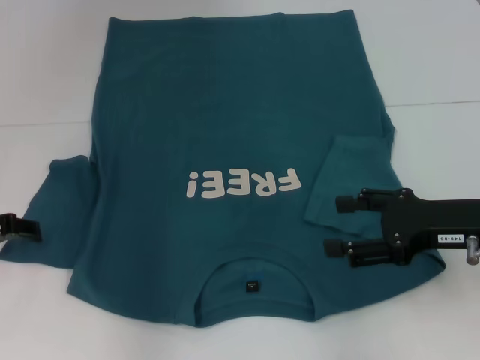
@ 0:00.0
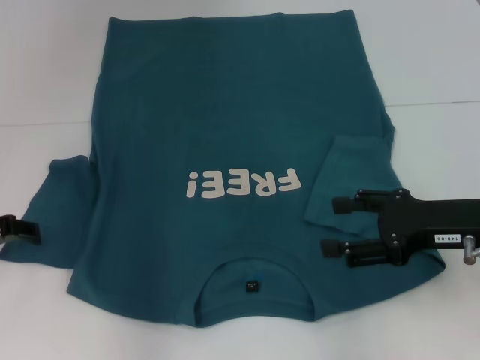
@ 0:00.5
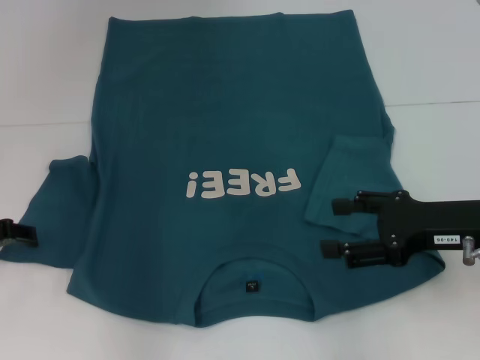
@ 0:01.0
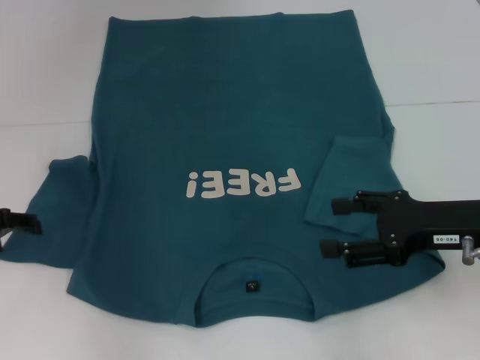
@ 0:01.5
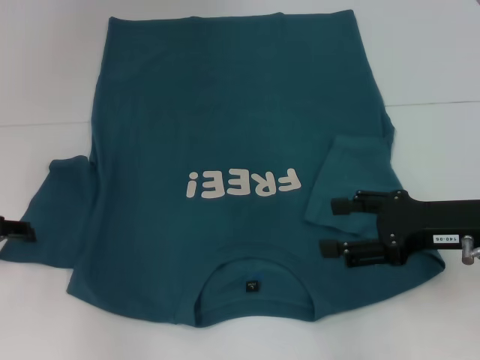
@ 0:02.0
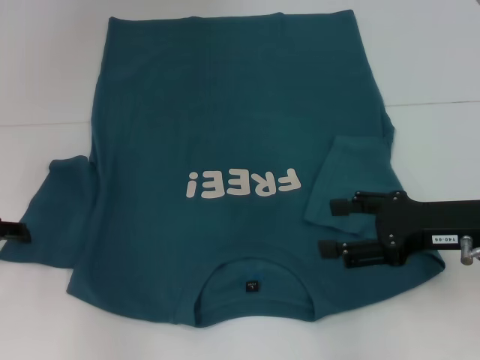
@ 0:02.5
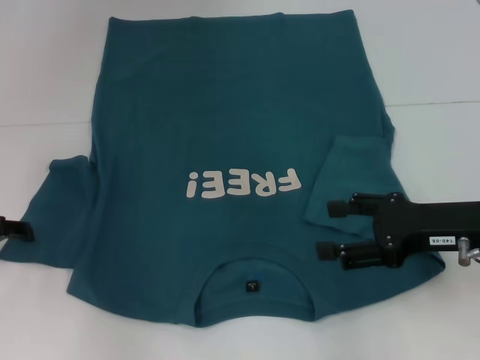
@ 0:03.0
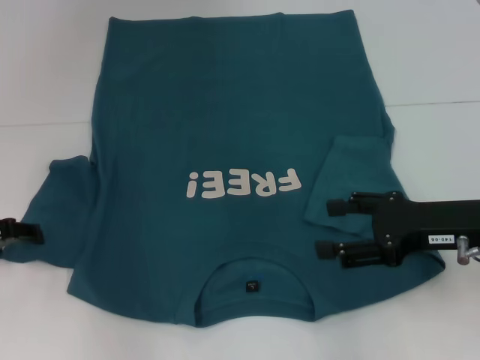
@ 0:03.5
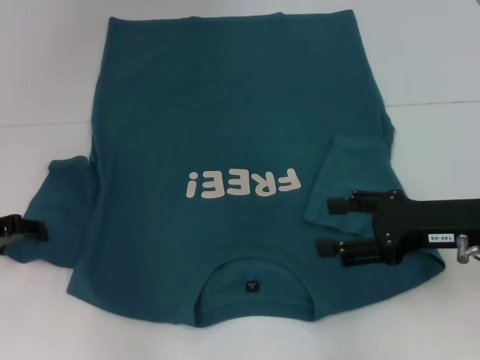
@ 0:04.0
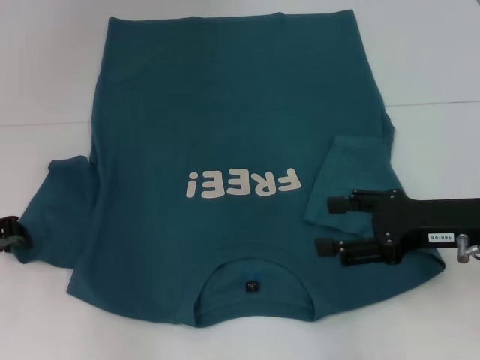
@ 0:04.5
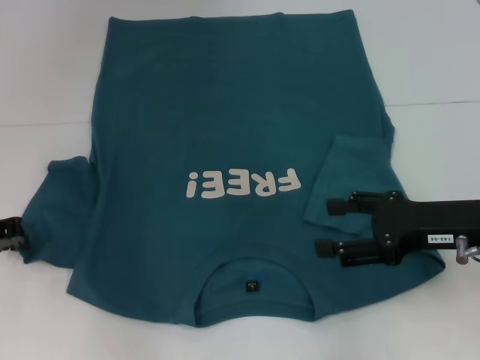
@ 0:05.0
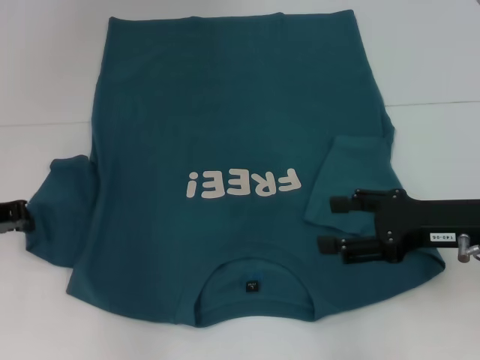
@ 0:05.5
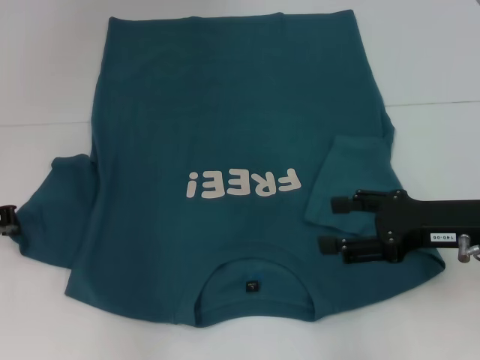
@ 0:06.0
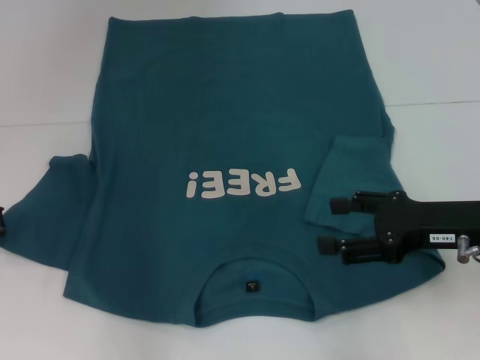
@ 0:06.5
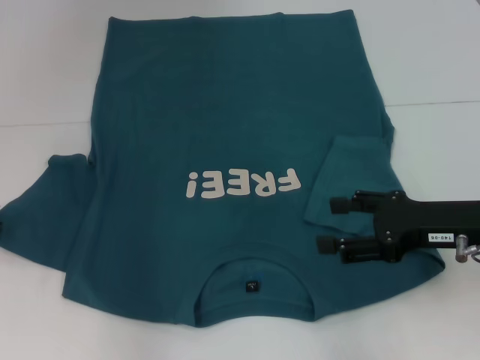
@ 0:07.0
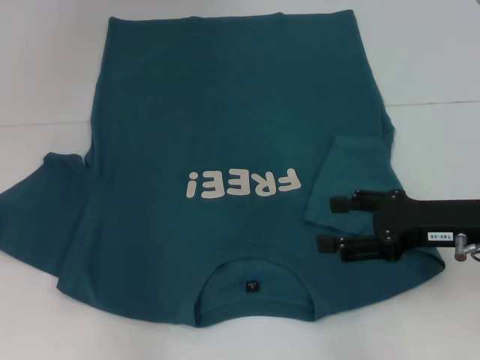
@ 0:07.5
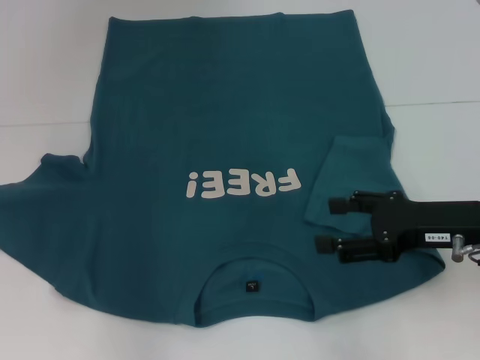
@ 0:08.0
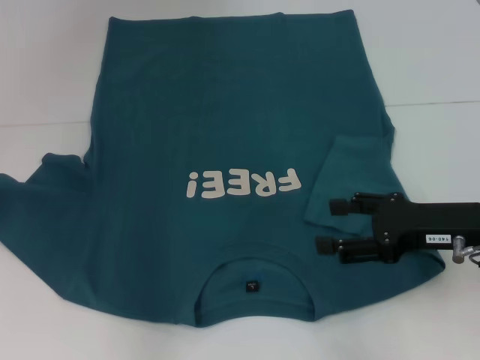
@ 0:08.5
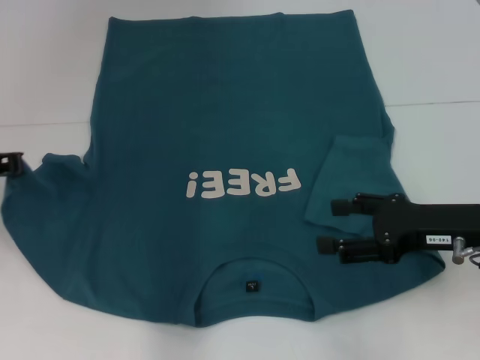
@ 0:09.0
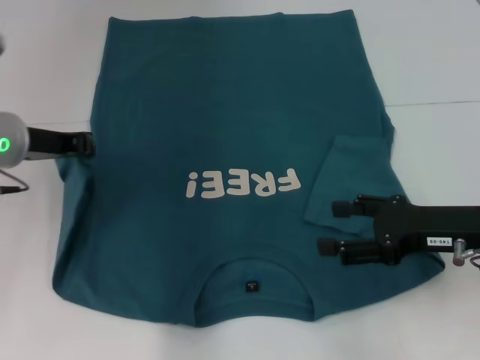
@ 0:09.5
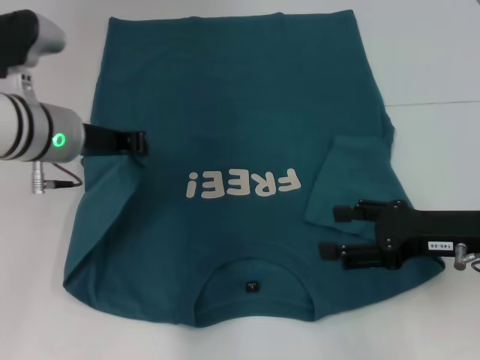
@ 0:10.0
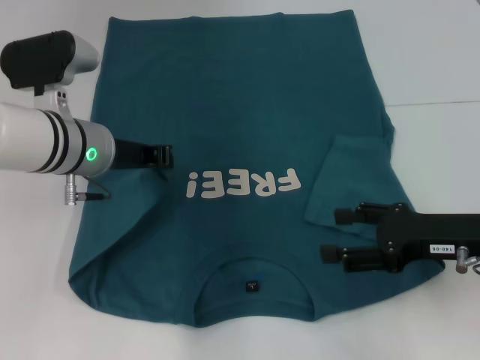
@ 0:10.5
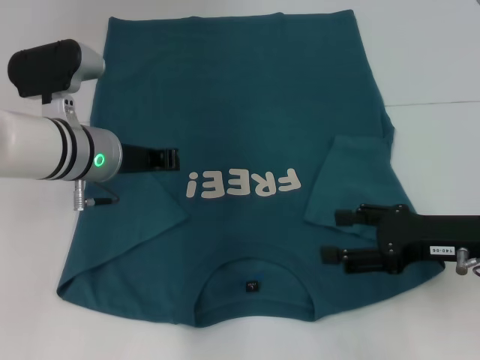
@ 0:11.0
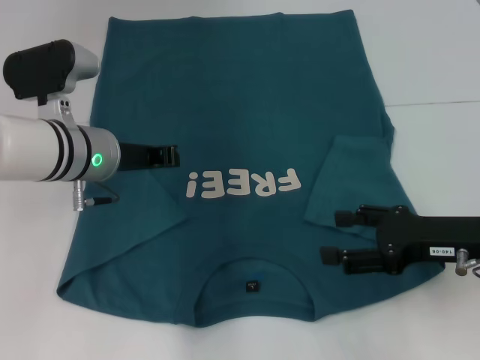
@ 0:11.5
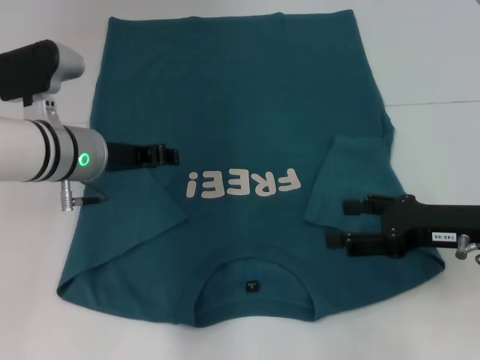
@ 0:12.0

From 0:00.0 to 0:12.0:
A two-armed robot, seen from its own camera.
Step, from 0:00.0 to 0:10.5: Fold the bottom left sleeve with your left hand.
From 0:02.0 to 0:04.0: The grippers move only a little.
From 0:04.0 to 0:06.0: The left gripper closes.
From 0:06.0 to 0:08.0: The grippers move only a little.
From 0:08.0 to 0:10.0: The left gripper moves to the right, some 15 cm.
From 0:10.0 to 0:12.0: The grippers stay close to where they were, moving slightly.

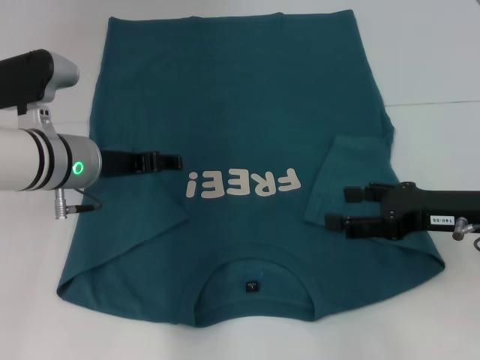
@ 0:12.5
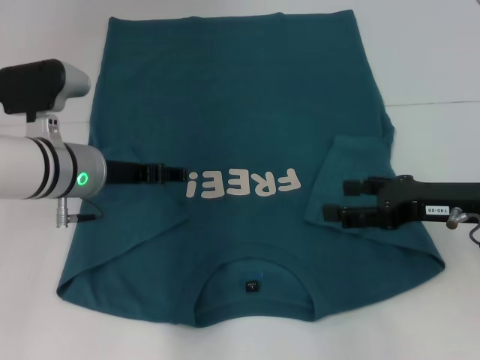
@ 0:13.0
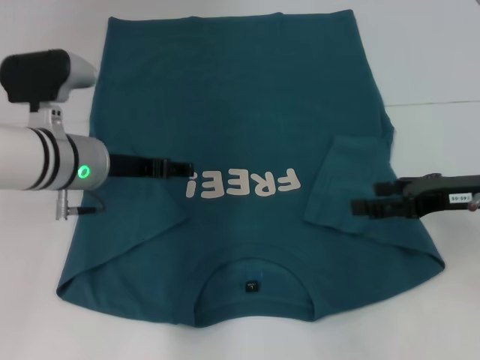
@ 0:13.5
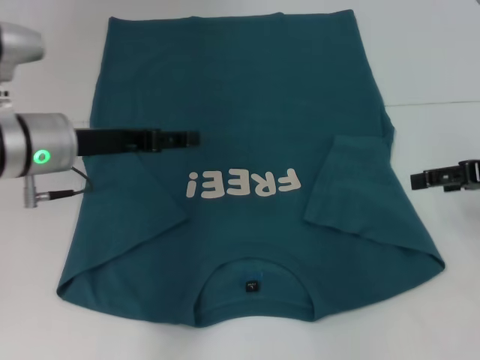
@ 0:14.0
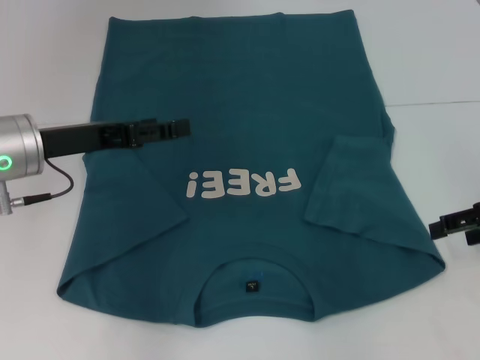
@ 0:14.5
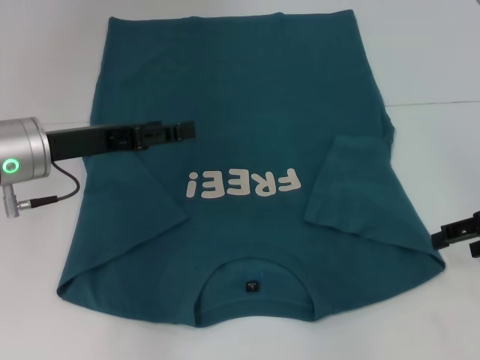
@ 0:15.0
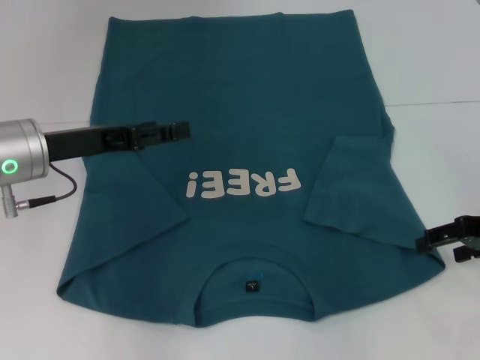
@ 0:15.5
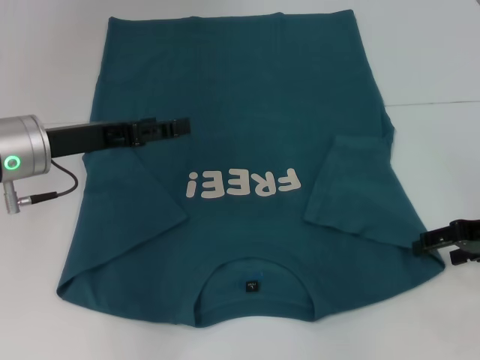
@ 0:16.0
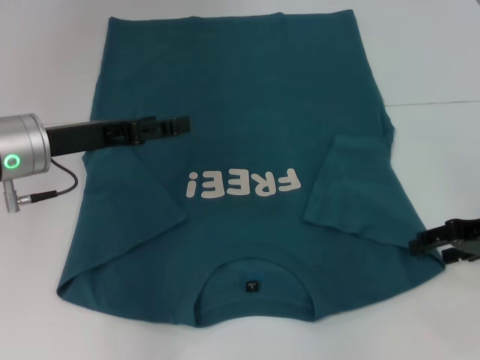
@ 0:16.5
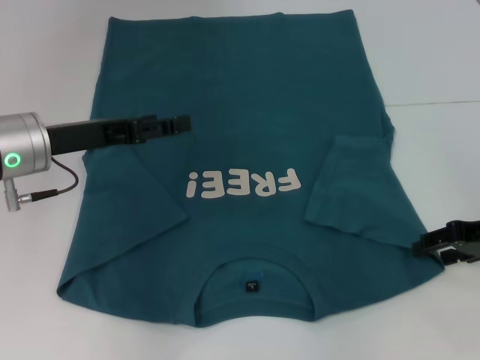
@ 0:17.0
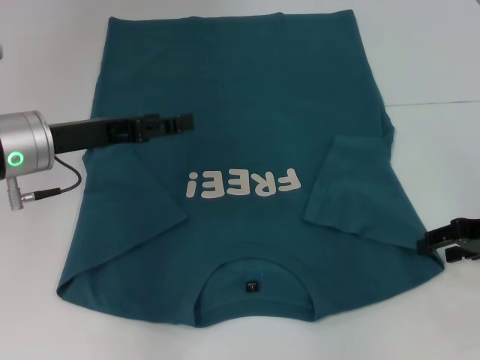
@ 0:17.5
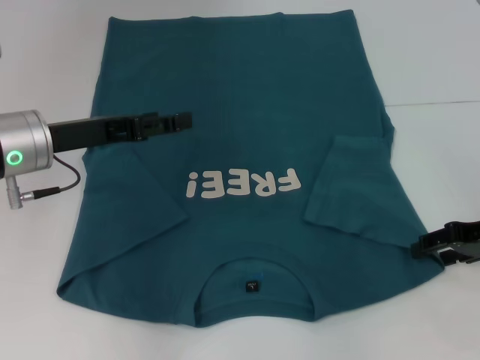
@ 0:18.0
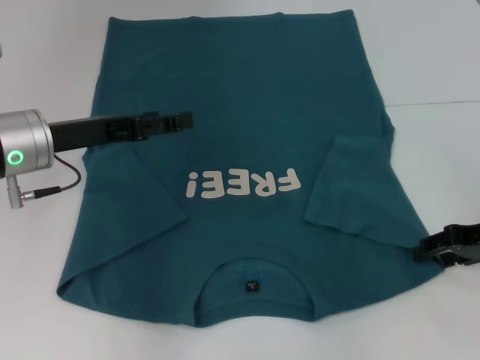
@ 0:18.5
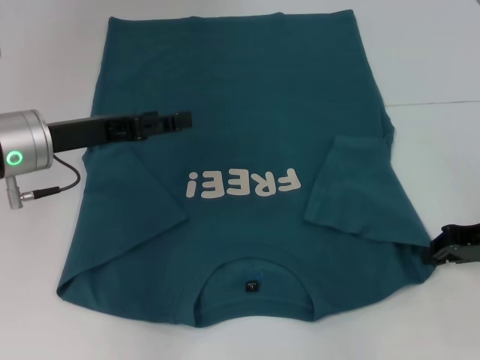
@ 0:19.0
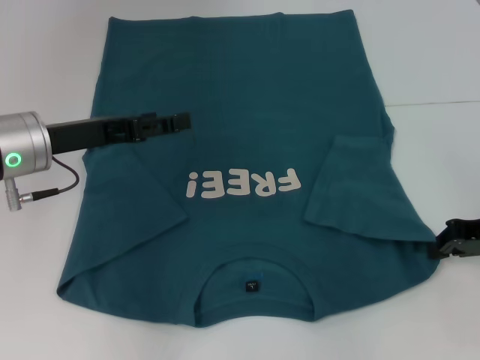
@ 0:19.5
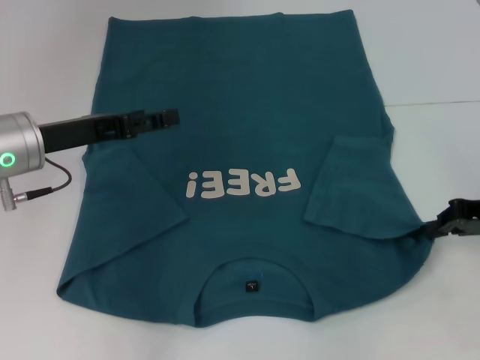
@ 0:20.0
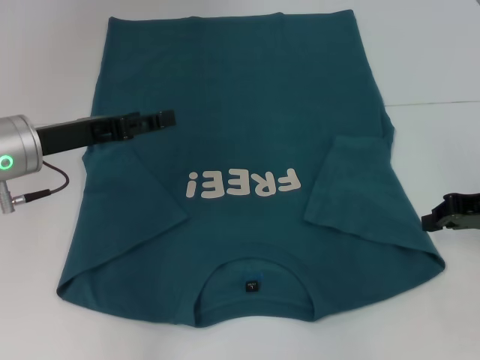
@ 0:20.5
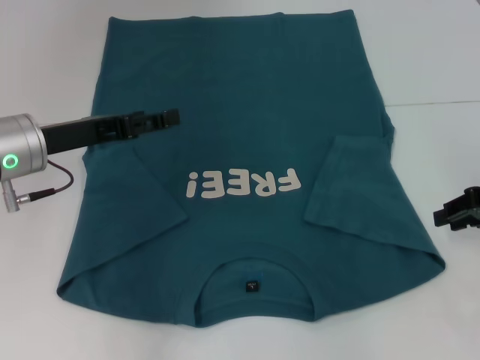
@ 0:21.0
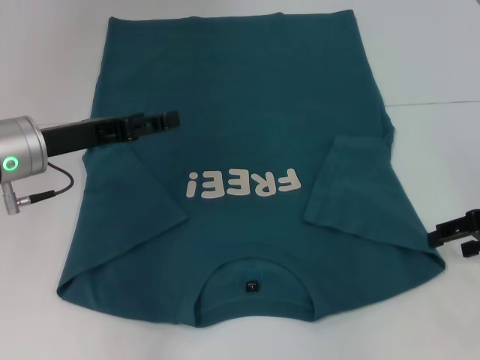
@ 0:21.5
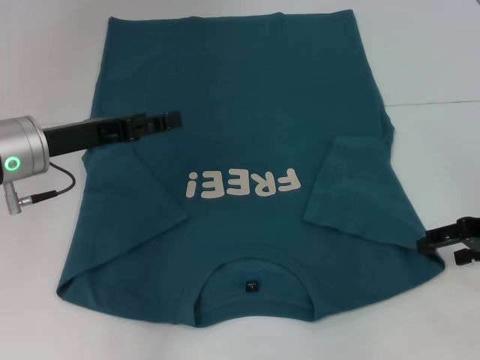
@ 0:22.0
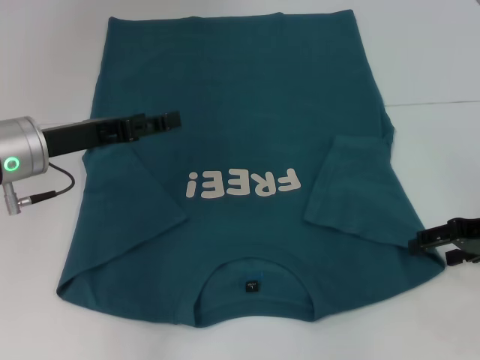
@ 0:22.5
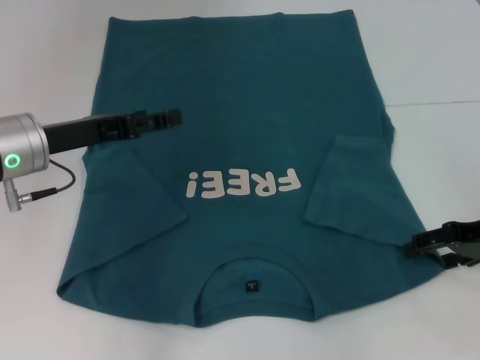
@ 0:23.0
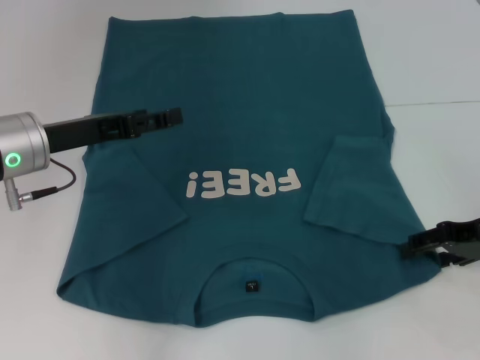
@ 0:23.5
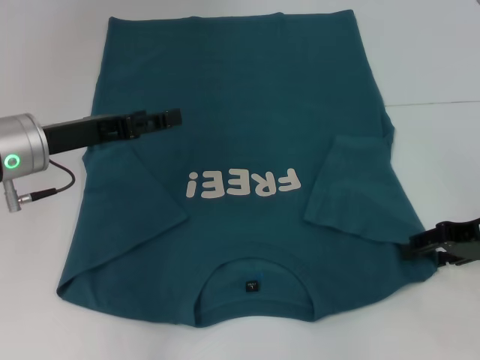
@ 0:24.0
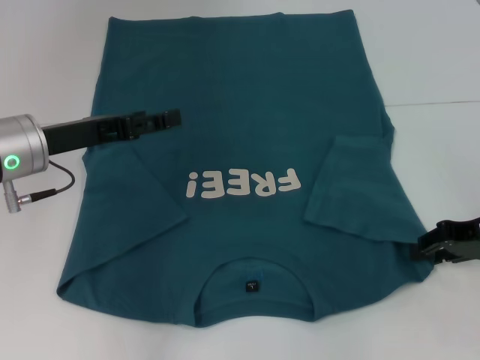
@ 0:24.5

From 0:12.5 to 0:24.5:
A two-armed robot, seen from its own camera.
From 0:12.5 to 0:14.5: The left gripper ends up roughly 5 cm from where it was. Meanwhile the right gripper is displaced to the right by approximately 5 cm.
From 0:14.5 to 0:16.5: The grippers stay close to where they were, moving slightly.
From 0:16.5 to 0:18.5: The two grippers keep their place.
From 0:18.5 to 0:20.5: The right gripper closes its fingers.
From 0:20.5 to 0:22.5: The right gripper opens its fingers.
From 0:22.5 to 0:24.5: The right gripper closes its fingers.

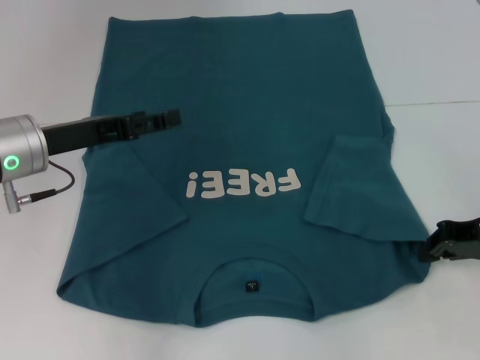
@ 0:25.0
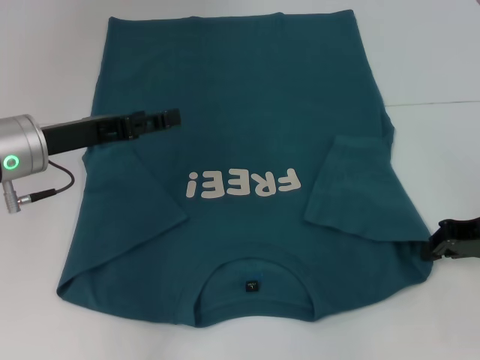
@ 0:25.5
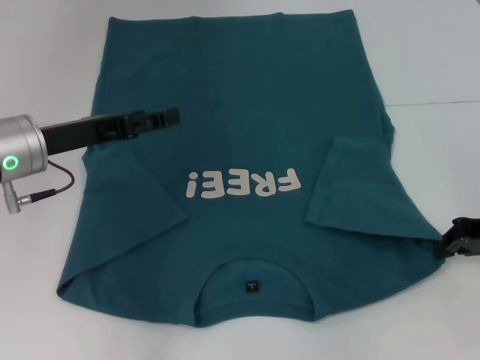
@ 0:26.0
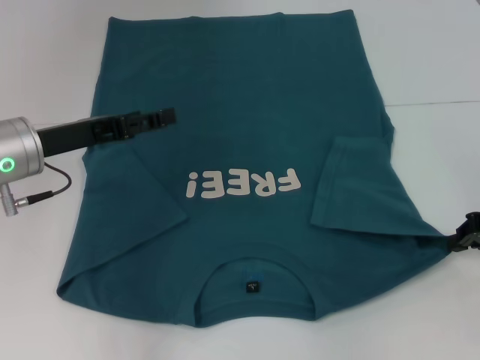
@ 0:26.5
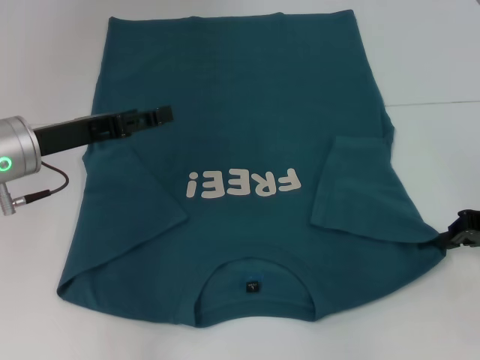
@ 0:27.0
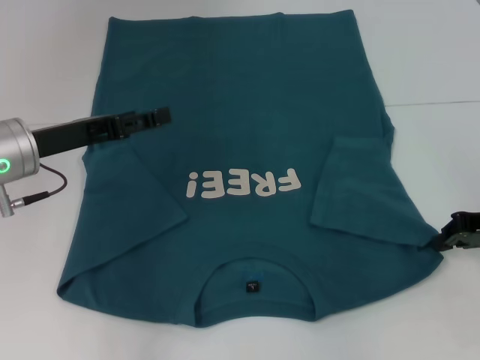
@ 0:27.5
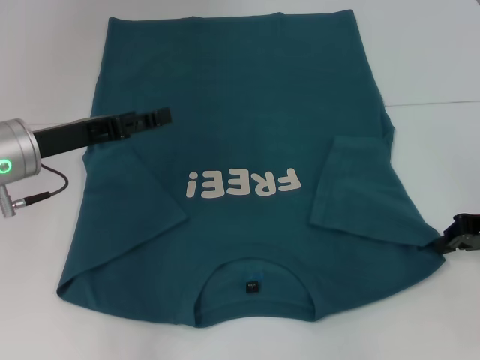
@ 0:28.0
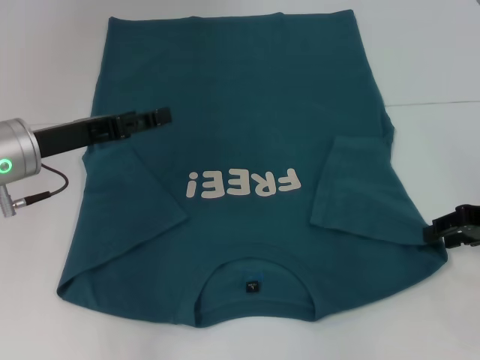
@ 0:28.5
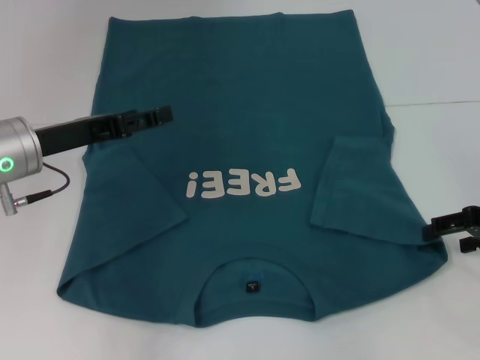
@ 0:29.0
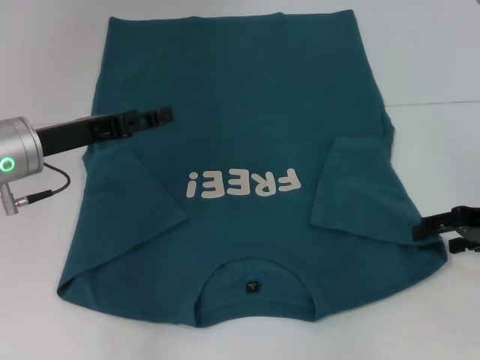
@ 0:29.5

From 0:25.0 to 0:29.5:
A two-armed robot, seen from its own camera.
From 0:25.0 to 0:27.0: The grippers stay close to where they were, moving slightly.
From 0:27.0 to 0:29.5: The right gripper opens up.
